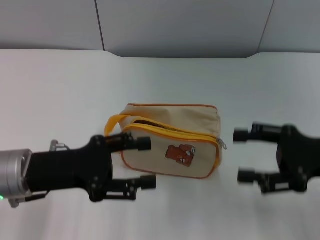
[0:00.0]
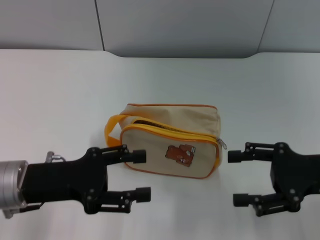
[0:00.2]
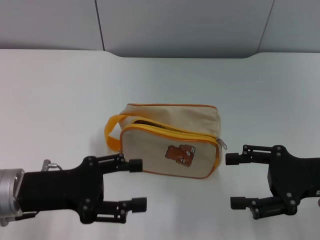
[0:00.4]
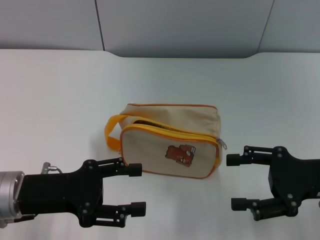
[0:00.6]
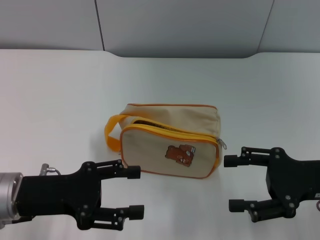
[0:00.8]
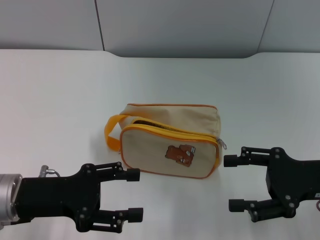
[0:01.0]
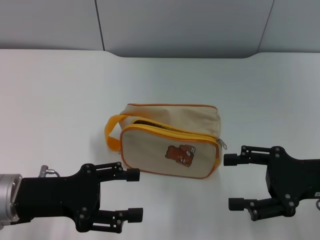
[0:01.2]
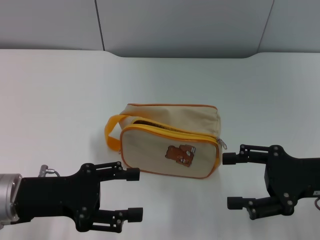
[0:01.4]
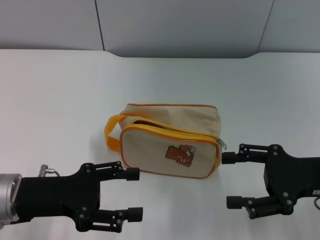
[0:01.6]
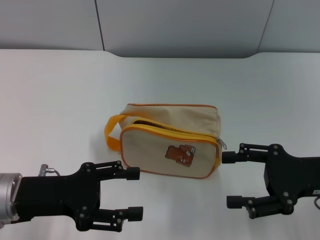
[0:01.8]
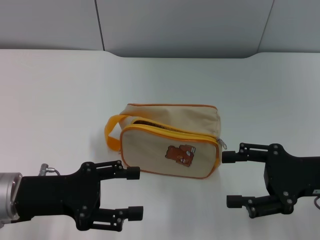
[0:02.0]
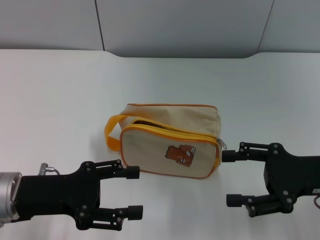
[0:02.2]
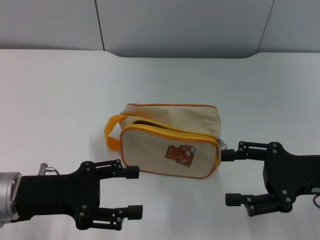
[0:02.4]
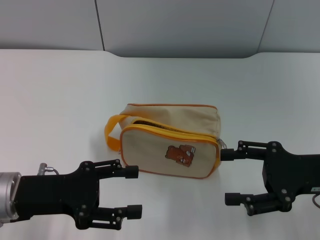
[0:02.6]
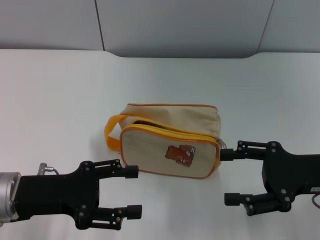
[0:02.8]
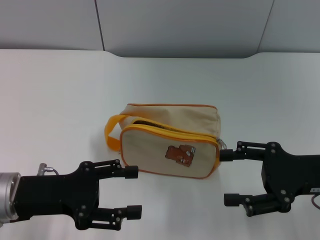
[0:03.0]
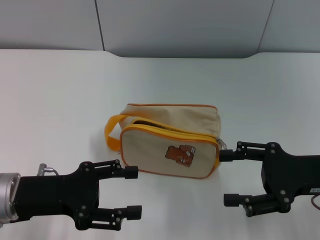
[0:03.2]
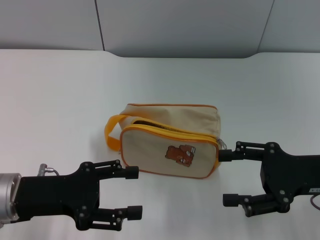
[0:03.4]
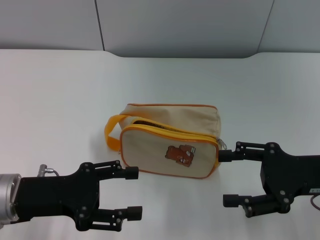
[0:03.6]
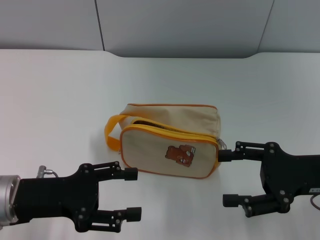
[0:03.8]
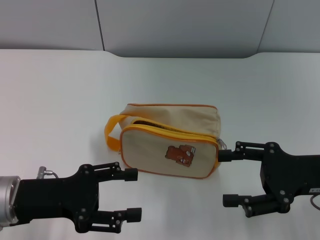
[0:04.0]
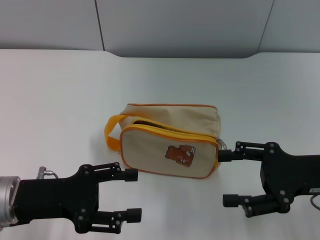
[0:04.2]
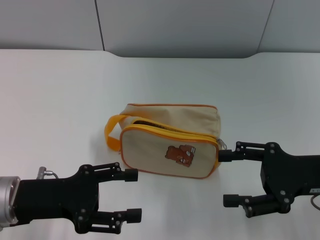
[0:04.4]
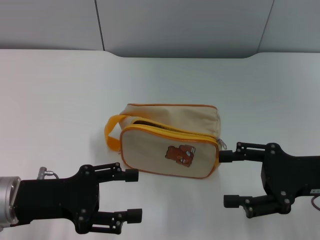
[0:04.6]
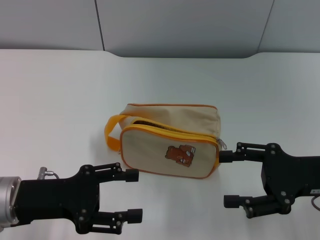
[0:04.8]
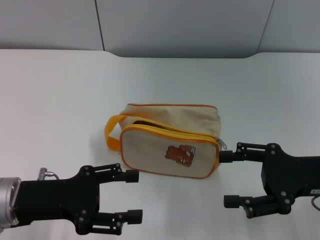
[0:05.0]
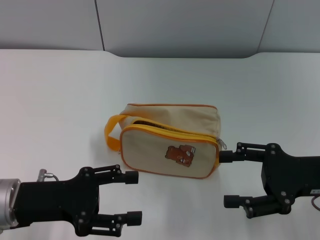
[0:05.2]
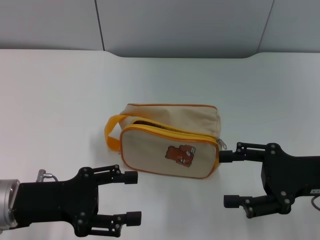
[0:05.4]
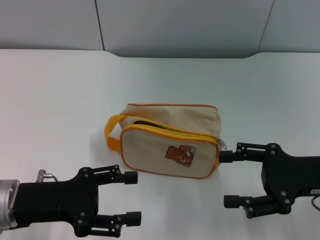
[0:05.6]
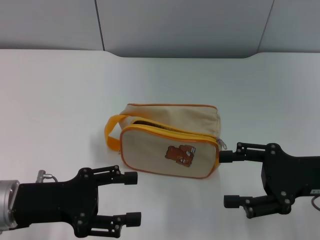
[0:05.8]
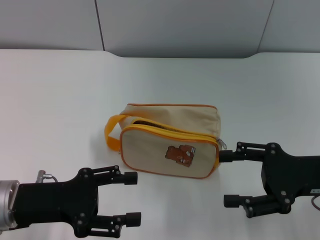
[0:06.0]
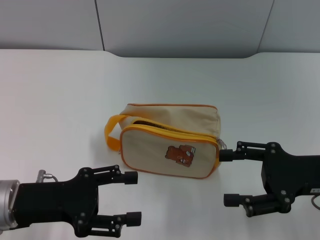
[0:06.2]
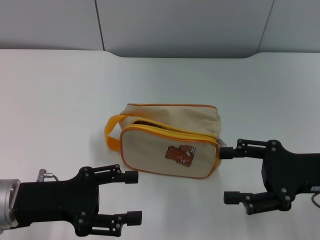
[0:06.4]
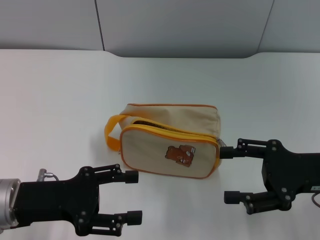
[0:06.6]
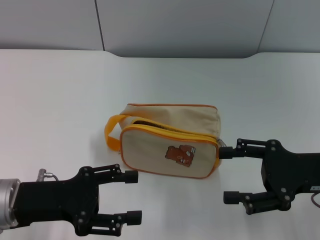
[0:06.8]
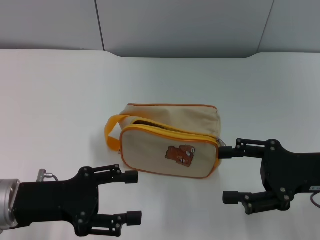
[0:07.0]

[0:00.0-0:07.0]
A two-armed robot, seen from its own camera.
0:00.0 to 0:01.4: The grippers make only small movements.
0:01.4 to 0:07.0: Both grippers stay put.
